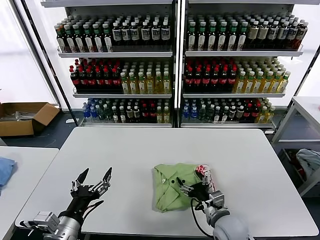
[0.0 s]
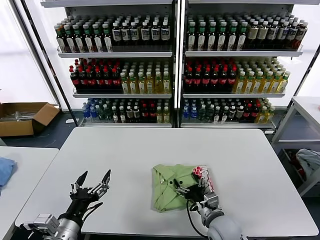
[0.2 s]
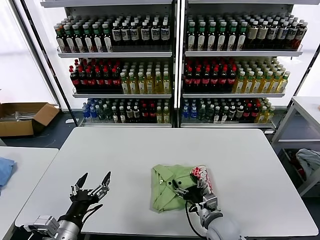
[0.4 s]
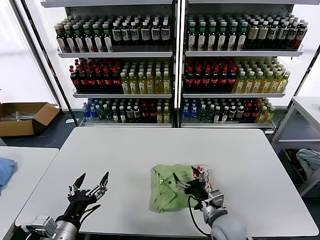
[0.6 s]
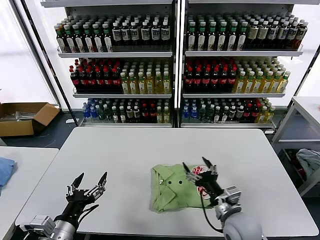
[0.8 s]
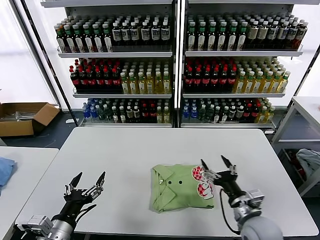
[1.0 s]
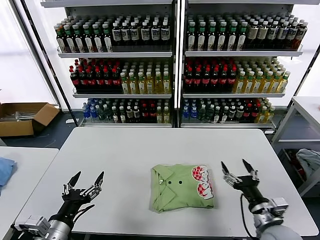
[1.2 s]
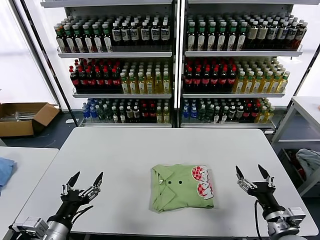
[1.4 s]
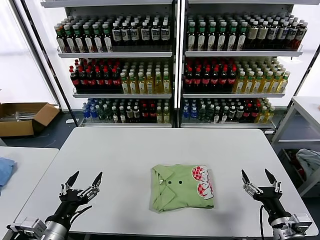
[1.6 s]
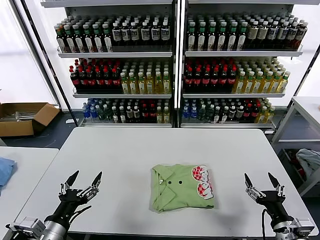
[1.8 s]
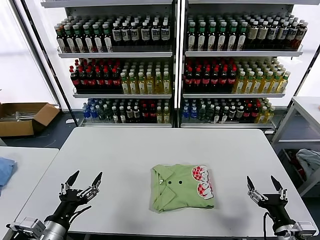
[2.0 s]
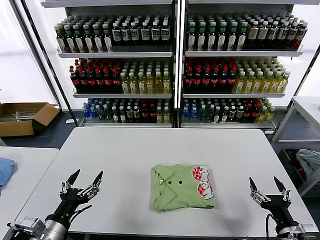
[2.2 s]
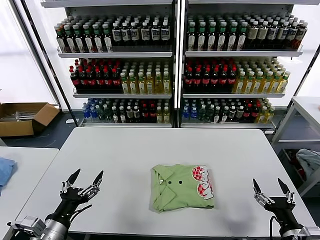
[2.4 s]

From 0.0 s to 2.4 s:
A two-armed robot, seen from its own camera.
Task of the whole recording: fold and organize the clothes.
From 0.0 s to 1.2 s: The right gripper shifts some 10 cm to the right.
From 1.2 s to 2.4 s: The right gripper is displaced backward and to the right by roughly 10 cm.

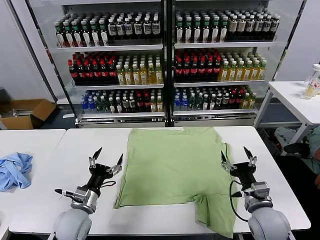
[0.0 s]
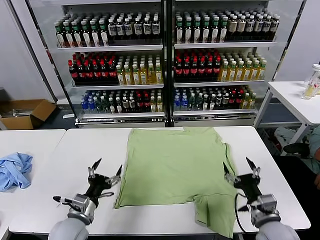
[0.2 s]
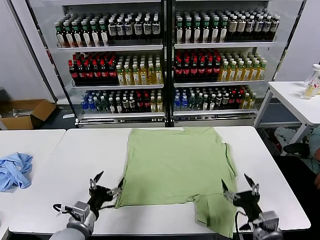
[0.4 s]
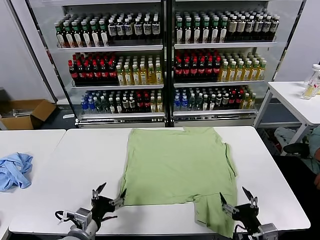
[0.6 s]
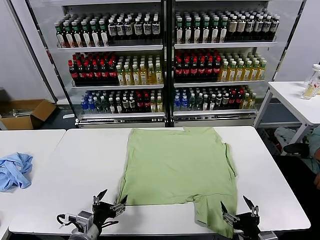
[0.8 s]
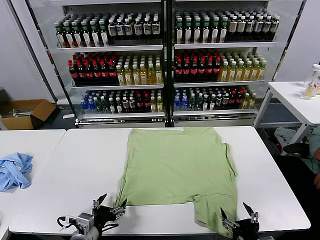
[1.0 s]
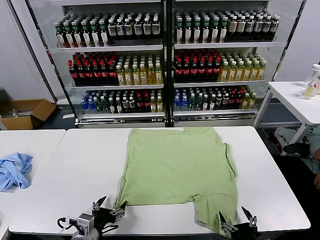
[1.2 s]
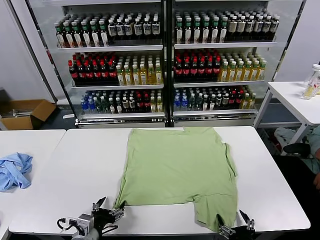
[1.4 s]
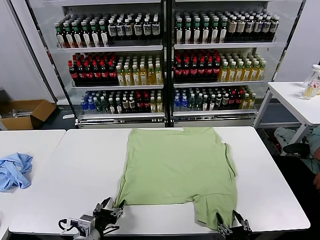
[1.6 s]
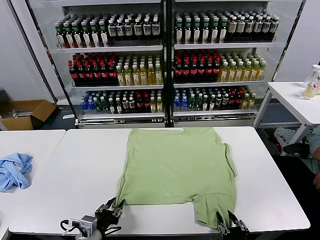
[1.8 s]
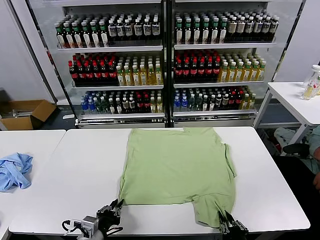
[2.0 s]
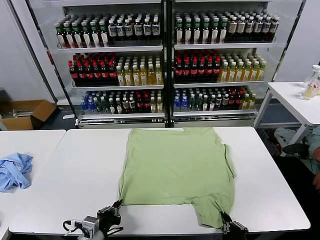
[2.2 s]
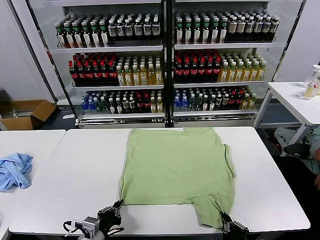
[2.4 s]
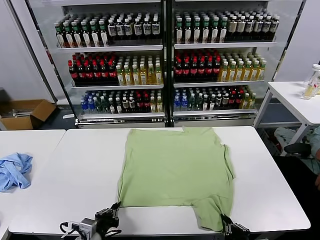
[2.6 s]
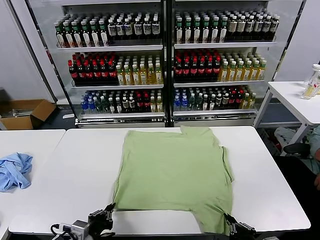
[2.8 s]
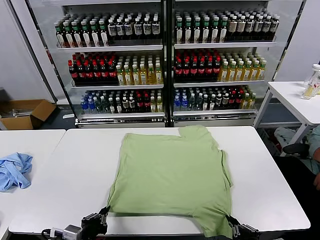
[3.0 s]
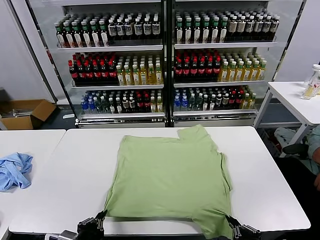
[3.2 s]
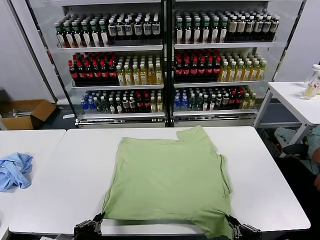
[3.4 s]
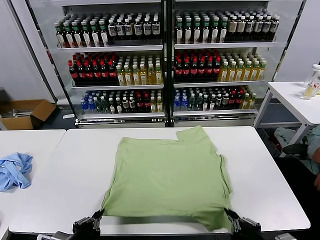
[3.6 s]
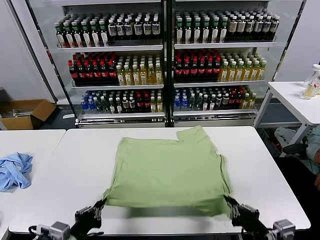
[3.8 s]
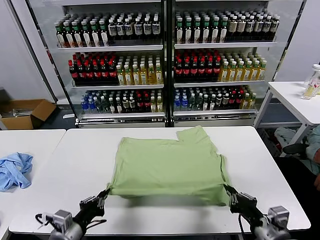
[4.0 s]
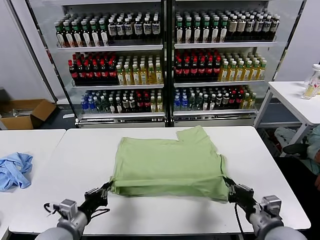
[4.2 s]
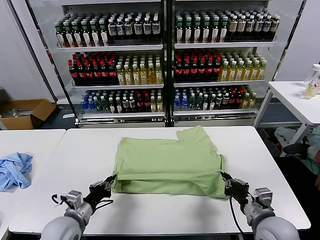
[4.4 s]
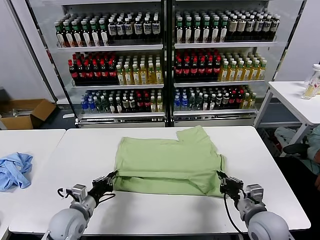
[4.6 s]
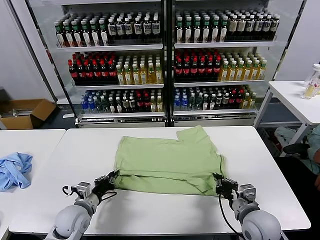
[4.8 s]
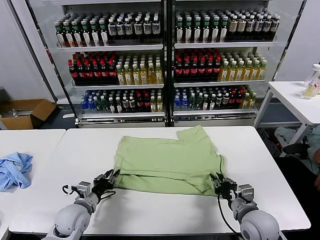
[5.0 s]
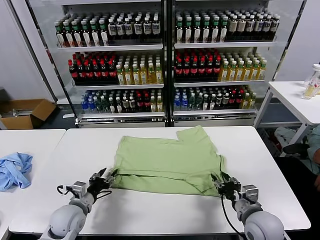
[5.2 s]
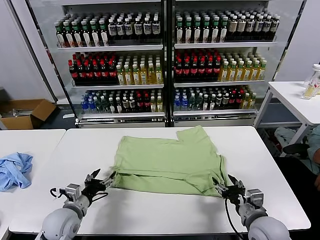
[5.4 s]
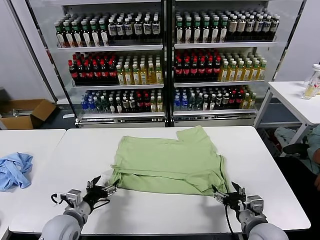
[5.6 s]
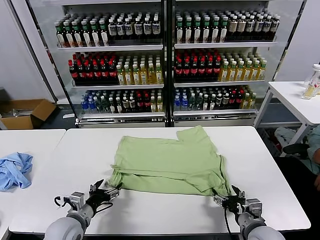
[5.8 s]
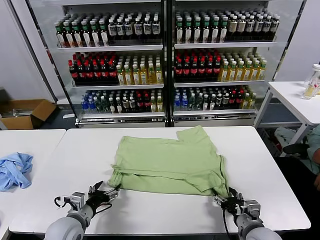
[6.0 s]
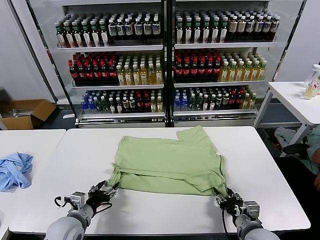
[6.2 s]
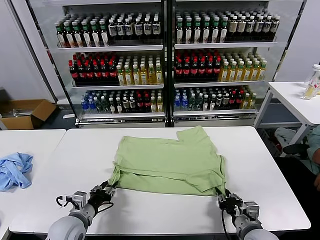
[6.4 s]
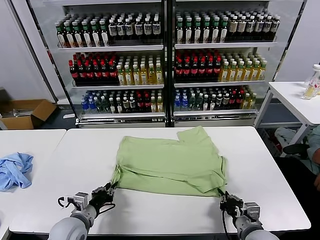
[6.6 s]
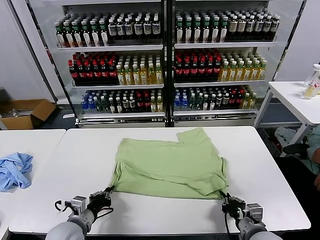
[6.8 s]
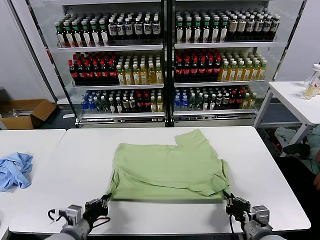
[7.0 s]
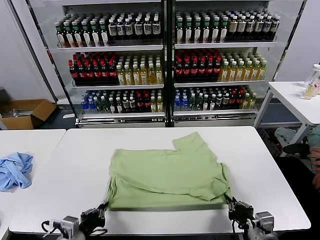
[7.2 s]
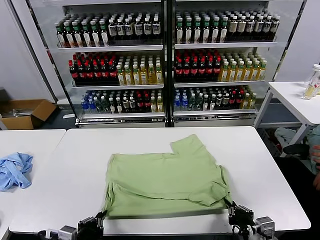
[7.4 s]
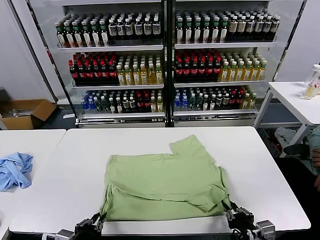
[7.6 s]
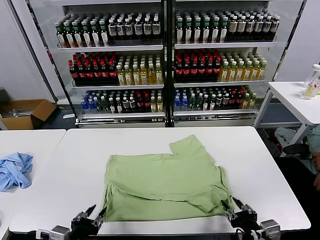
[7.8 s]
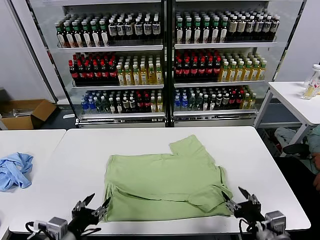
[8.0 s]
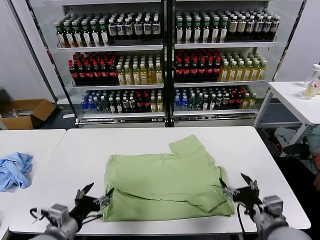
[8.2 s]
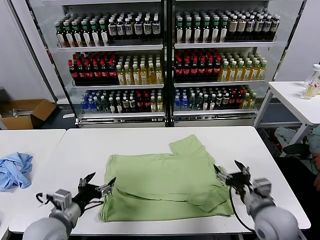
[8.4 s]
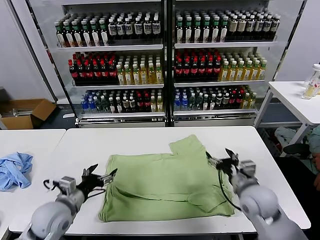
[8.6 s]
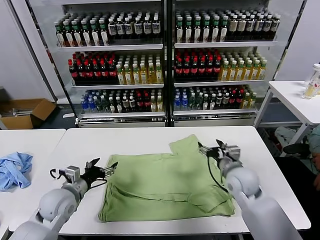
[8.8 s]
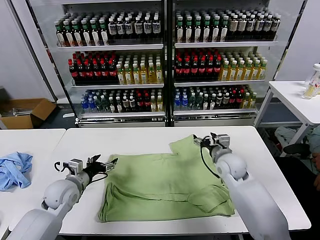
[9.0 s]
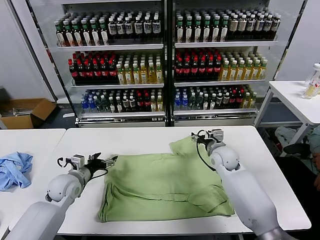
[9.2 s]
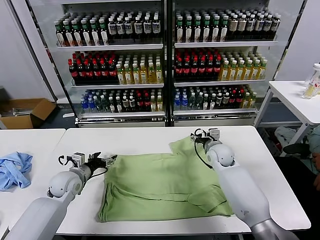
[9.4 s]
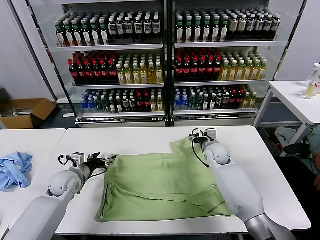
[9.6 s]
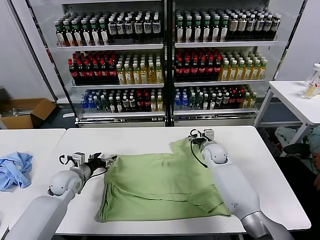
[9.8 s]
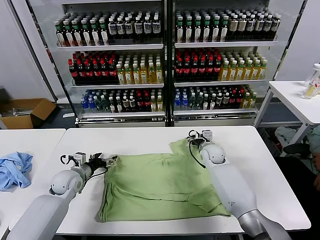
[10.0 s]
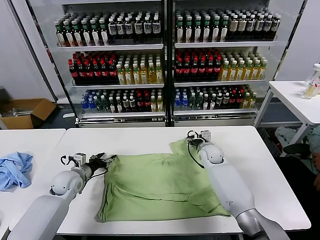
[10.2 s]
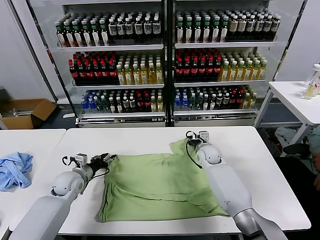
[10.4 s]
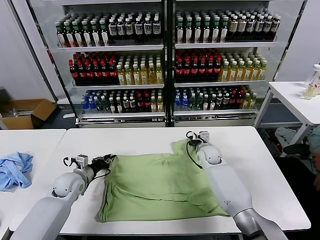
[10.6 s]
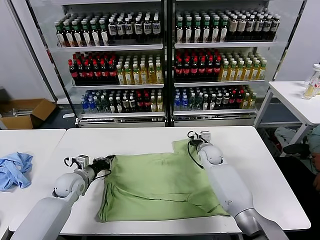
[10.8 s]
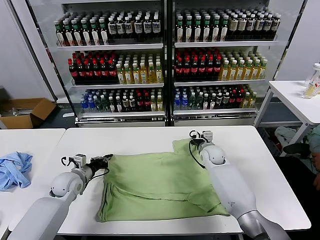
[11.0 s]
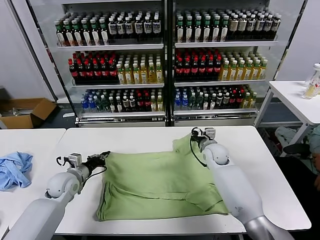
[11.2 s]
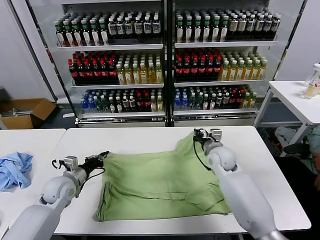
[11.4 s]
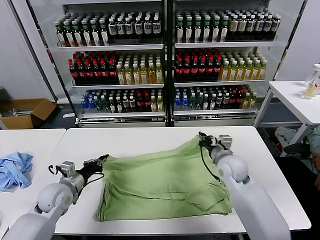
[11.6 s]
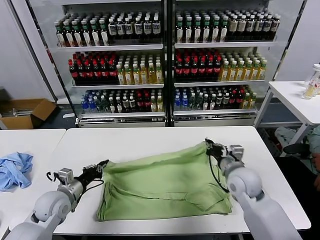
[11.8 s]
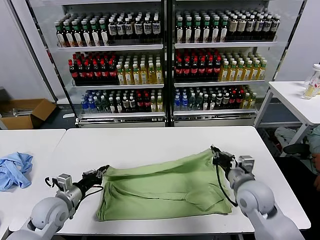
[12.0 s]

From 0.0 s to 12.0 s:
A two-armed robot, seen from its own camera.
Task of the whole recording: fold and organize the clothes.
Step, from 0.0 s to 2.6 s: use both grippers simultaneously to clamp the lower edge of the clothing fabric.
Step, from 3.0 s to 5.2 s: use both grippers to drag the lower edge of the fabric forward and fold it over the upper edge.
Step, from 5.4 s to 7.8 s: Drag the clothes downward with both gripper.
Step, from 8.0 s to 10.8 s: use both grippers simultaneously to clamp the upper edge of the clothing fabric.
From 1.6 s to 3.0 s: The right gripper goes some 10 cm upward, and closes. Meanwhile the left gripper moves roughly 5 cm, and closes.
From 3.0 s to 4.4 s: Both grippers travel together forward, some 15 cm.
From 4.4 s to 6.0 s: The right gripper moves downward, some 5 cm, and opens; the left gripper opens.
From 6.0 s to 7.6 s: The right gripper goes some 5 cm backward. Meanwhile the left gripper shifts about 15 cm backward and upward, and closes.
From 7.6 s to 9.0 s: Both grippers move forward, approximately 30 cm. The right gripper opens its fingers, while the left gripper opens.
From 9.0 s to 10.4 s: The right gripper travels forward and downward by approximately 10 cm, and closes its fingers. Meanwhile the left gripper shifts roughly 5 cm forward, and closes its fingers.
From 10.4 s to 12.0 s: The left gripper travels backward by about 10 cm, and closes up. The right gripper is displaced backward by roughly 25 cm, and closes.

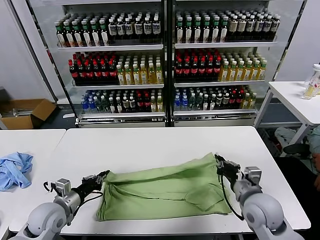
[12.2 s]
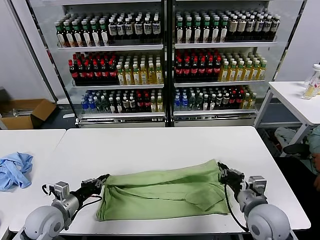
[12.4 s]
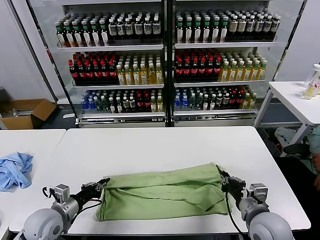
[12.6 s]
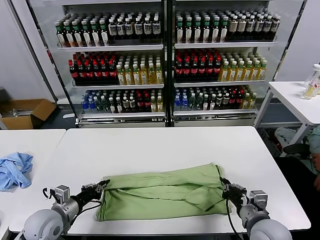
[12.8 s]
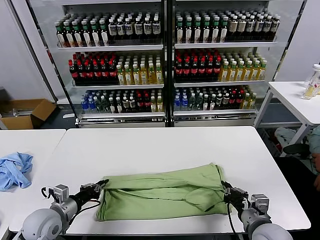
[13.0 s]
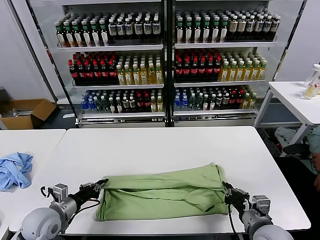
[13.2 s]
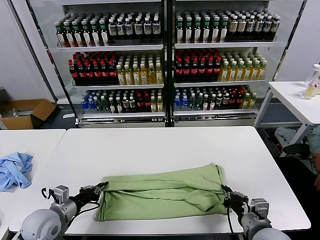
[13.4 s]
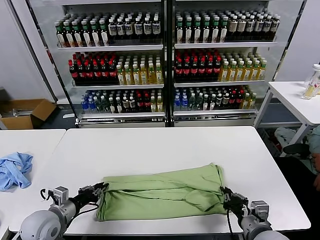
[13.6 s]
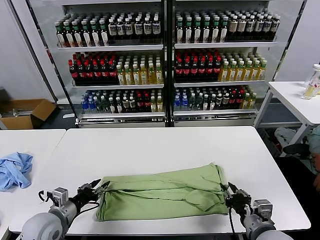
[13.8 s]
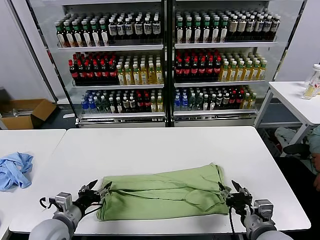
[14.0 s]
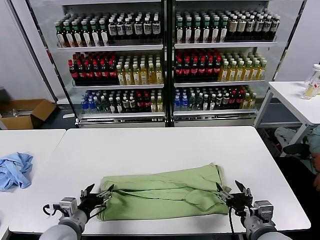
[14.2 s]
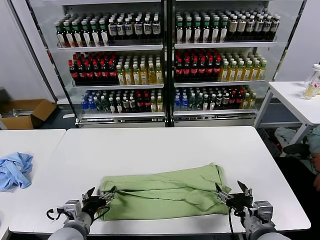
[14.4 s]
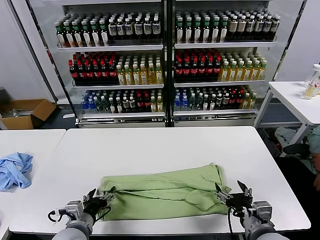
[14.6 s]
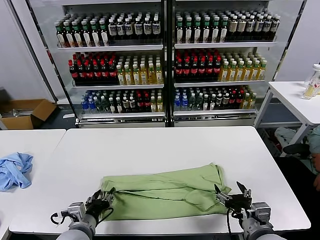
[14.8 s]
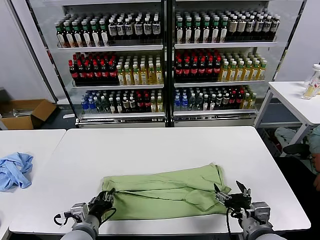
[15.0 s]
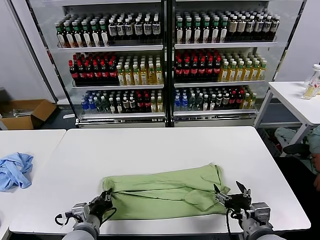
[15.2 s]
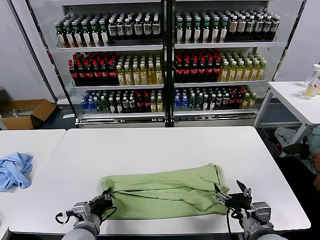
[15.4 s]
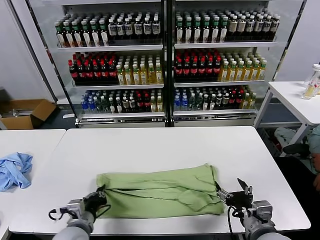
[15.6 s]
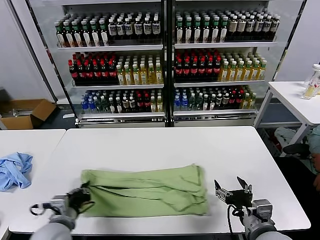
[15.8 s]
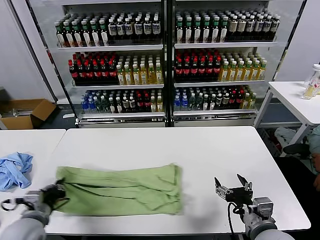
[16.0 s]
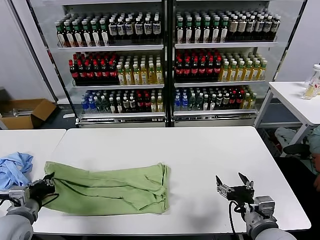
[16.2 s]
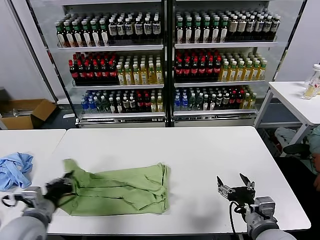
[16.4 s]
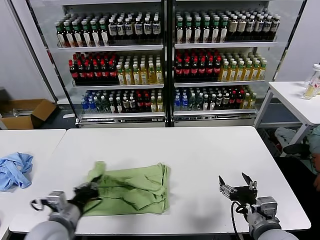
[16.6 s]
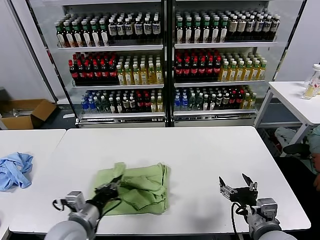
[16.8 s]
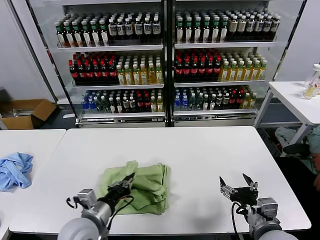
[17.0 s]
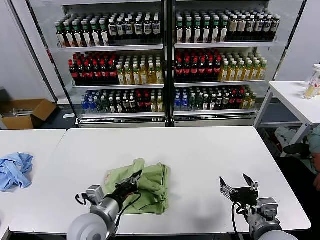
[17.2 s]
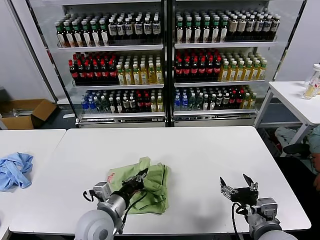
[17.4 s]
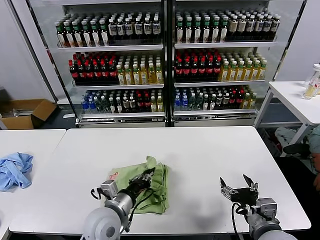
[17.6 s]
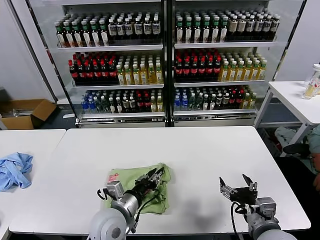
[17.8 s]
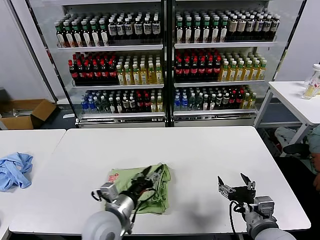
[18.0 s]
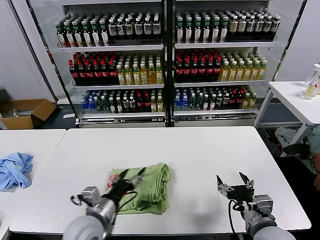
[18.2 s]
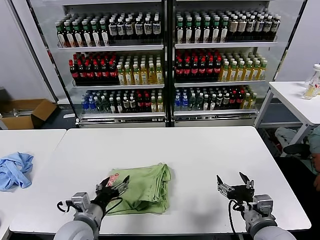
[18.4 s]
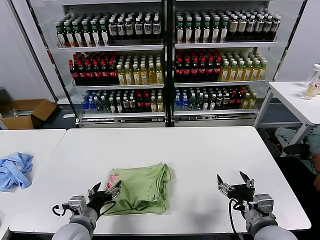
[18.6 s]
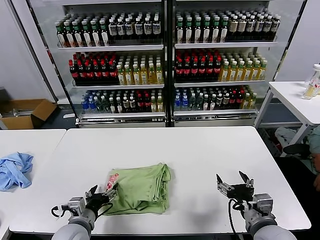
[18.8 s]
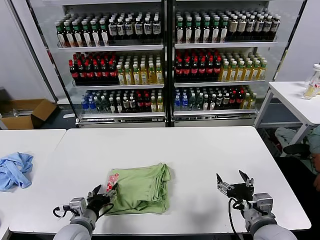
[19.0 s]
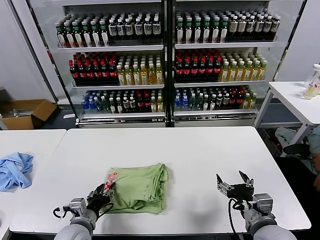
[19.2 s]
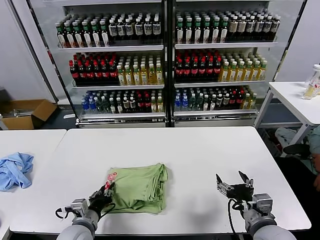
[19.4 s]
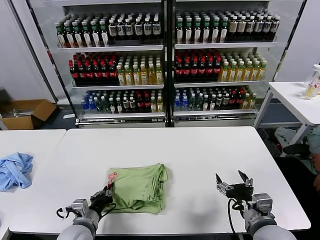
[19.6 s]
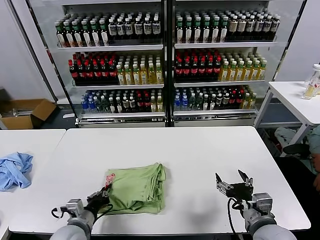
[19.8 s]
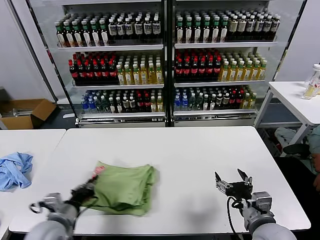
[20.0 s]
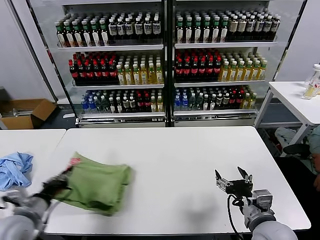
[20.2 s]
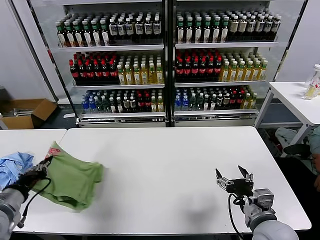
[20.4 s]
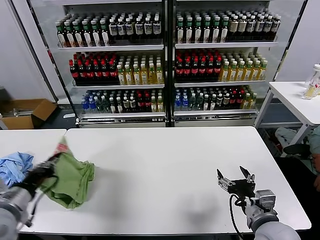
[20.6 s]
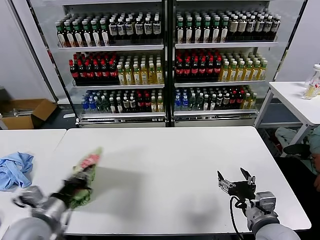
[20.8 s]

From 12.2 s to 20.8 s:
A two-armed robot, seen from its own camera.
Task of the whole recording: fold and organize the clothes.
Step, from 12.2 s to 14.0 s: use both grippers to drag the upper edge of the fabric backward and fold it over the lower edge.
Step, from 14.2 s to 15.2 s: use the left gripper to clamp the left edge of the fabric.
Step, from 15.6 s to 17.8 s: use the left gripper to drag the left edge of the fabric to the left and folds it over the right edge.
From 12.2 s to 13.6 s: The right gripper shifts roughly 10 cm backward.
From 13.6 s to 15.0 s: The right gripper opens; the left gripper moves to the right, about 10 cm, and opens and closes again.
From 15.0 s to 16.6 s: The left gripper goes approximately 10 cm upward and to the left, and closes up.
From 16.6 s to 18.0 s: The left gripper heads to the right, covering some 15 cm, and opens.
From 18.0 s to 19.4 s: The left gripper heads to the left and downward, covering about 15 cm, and opens and closes again.
From 19.4 s to 20.8 s: The left gripper heads upward and to the left, covering roughly 15 cm, and closes.
